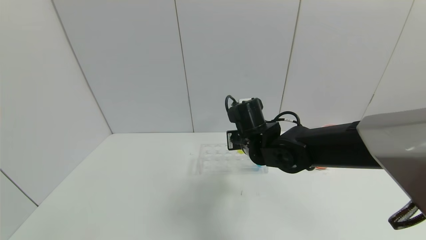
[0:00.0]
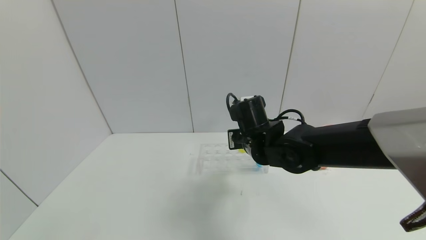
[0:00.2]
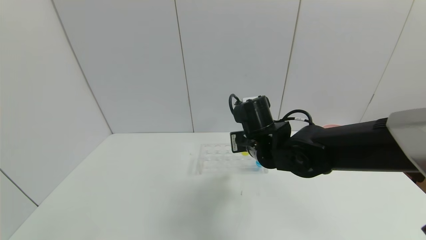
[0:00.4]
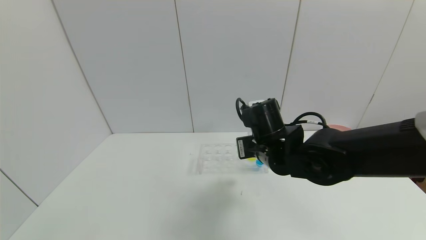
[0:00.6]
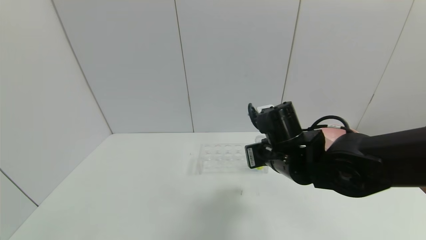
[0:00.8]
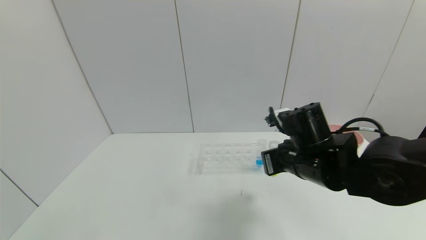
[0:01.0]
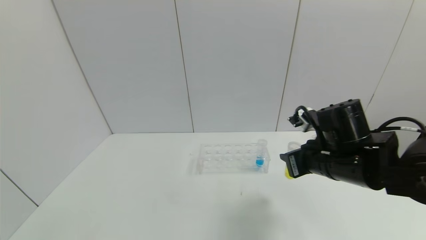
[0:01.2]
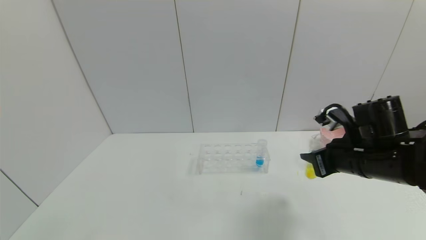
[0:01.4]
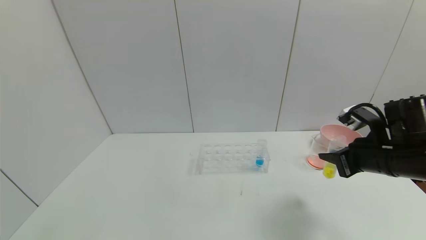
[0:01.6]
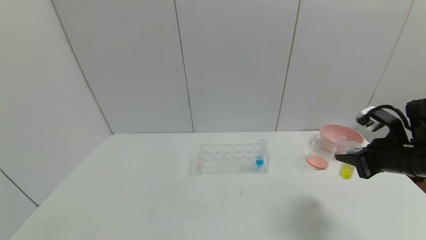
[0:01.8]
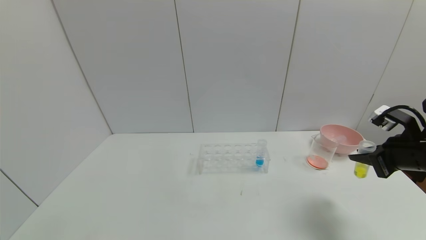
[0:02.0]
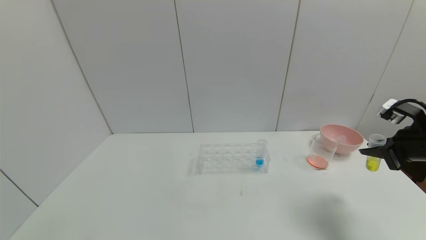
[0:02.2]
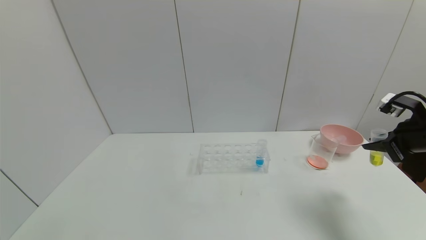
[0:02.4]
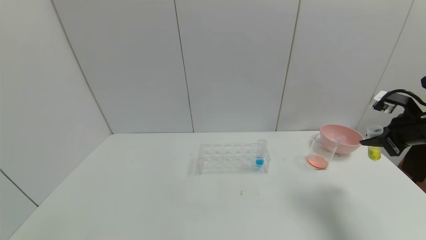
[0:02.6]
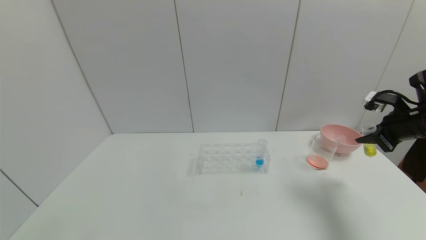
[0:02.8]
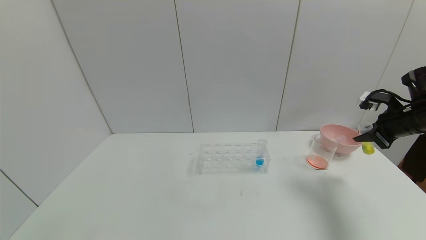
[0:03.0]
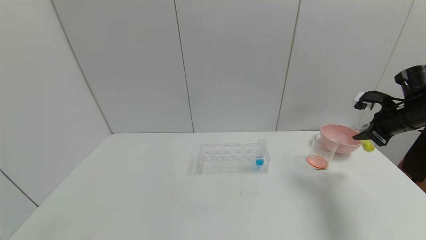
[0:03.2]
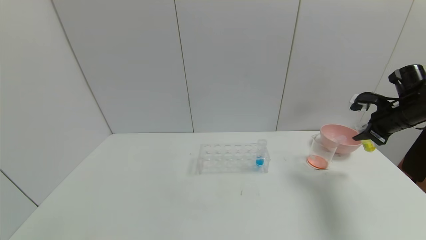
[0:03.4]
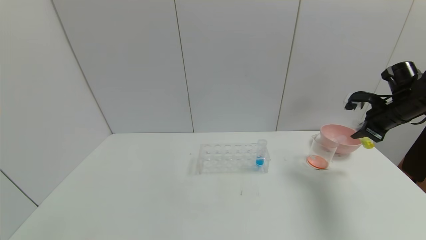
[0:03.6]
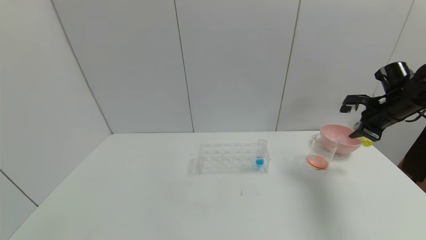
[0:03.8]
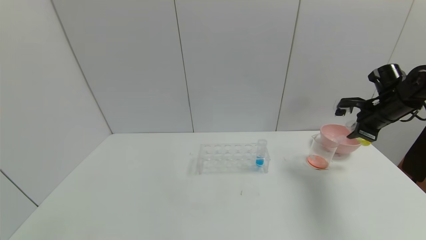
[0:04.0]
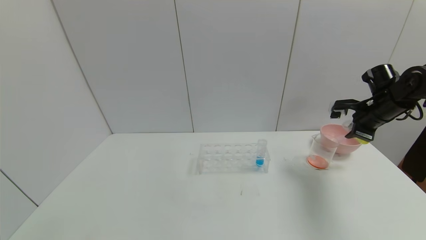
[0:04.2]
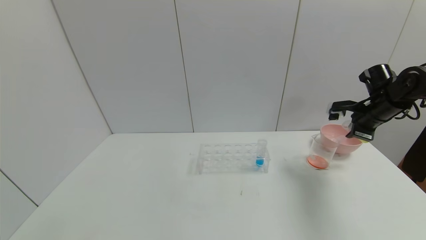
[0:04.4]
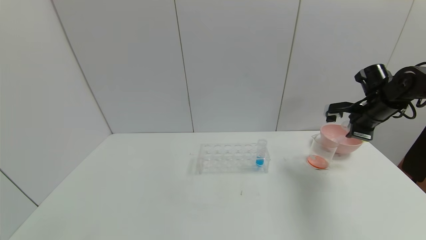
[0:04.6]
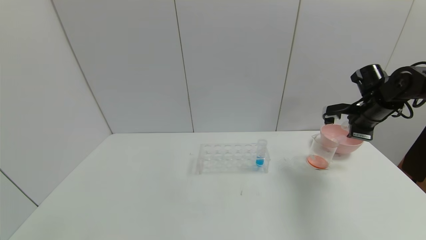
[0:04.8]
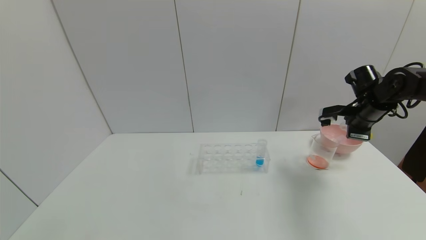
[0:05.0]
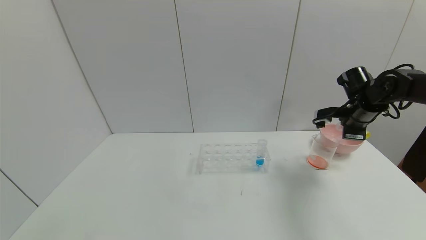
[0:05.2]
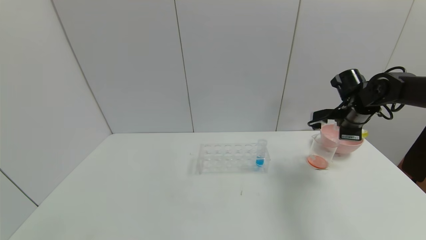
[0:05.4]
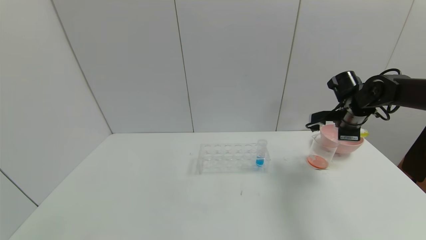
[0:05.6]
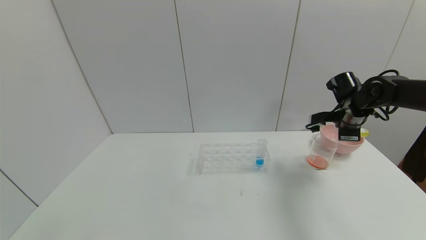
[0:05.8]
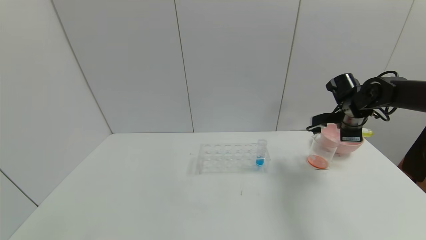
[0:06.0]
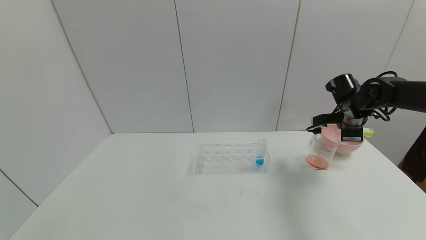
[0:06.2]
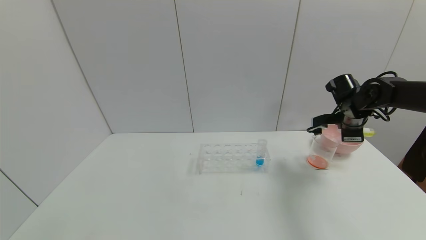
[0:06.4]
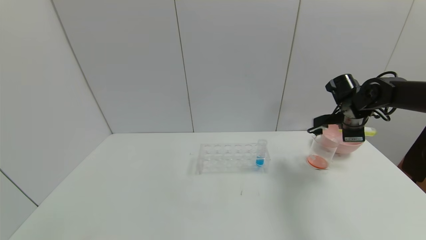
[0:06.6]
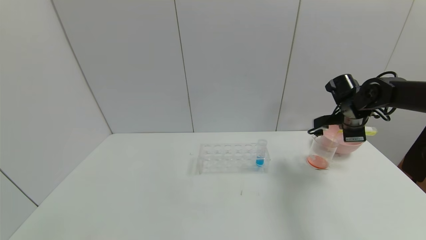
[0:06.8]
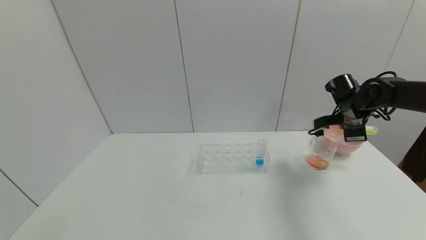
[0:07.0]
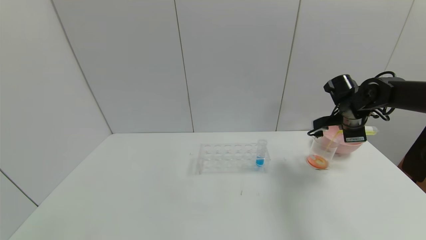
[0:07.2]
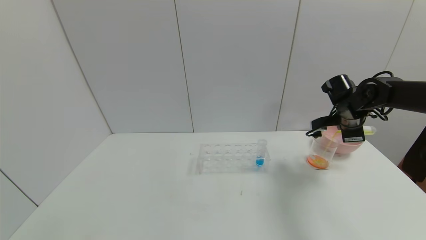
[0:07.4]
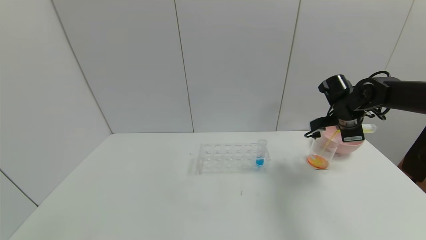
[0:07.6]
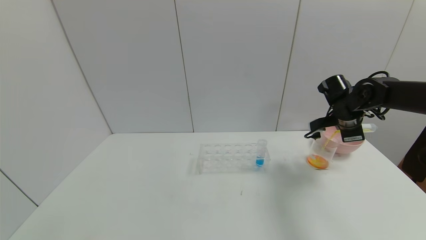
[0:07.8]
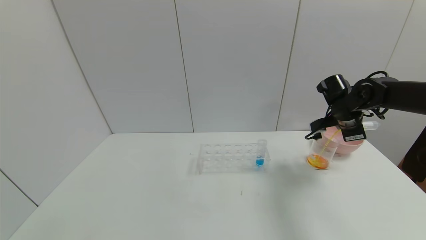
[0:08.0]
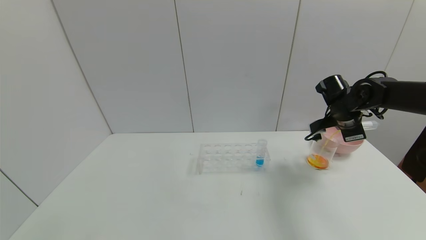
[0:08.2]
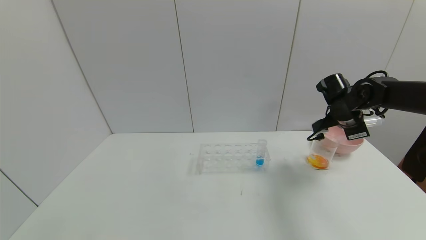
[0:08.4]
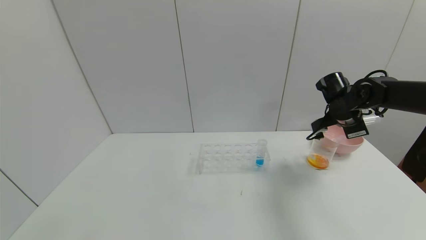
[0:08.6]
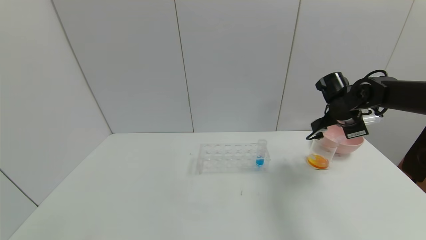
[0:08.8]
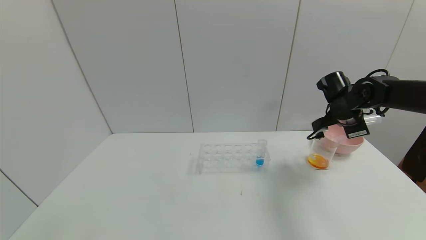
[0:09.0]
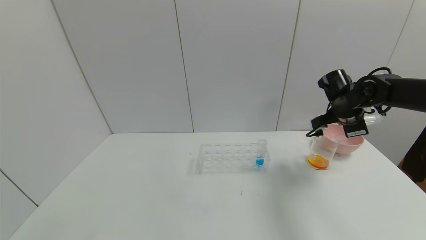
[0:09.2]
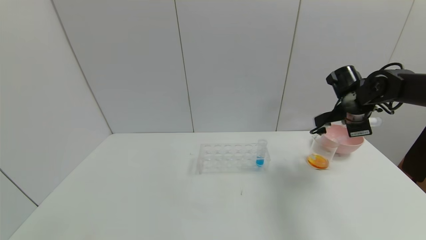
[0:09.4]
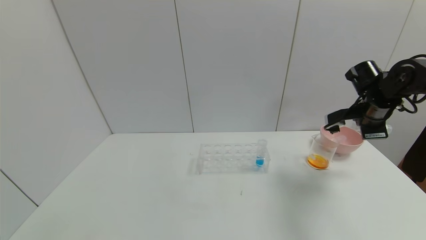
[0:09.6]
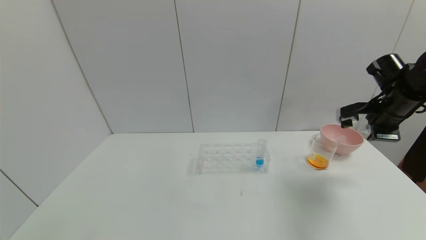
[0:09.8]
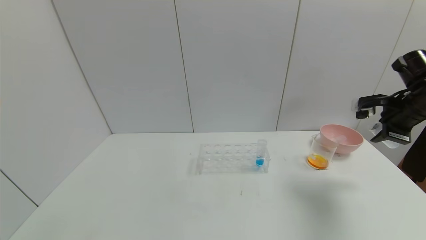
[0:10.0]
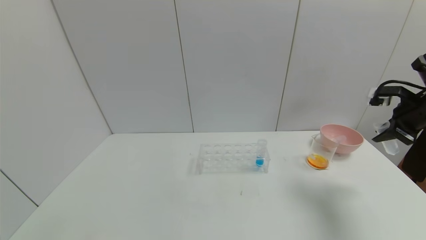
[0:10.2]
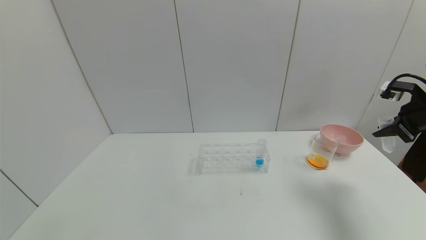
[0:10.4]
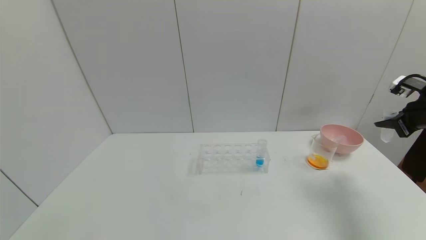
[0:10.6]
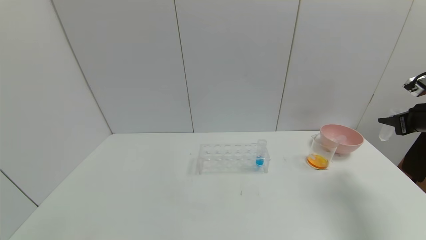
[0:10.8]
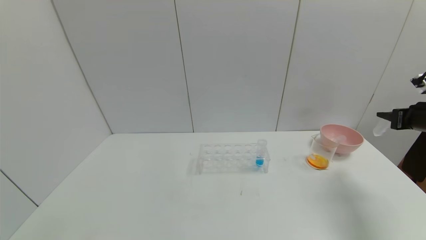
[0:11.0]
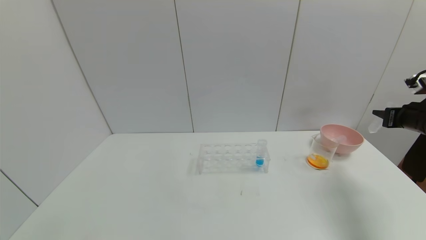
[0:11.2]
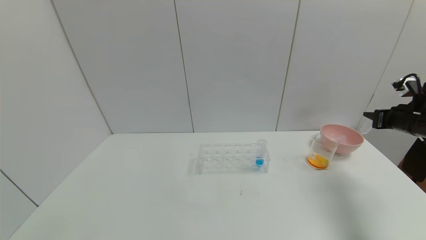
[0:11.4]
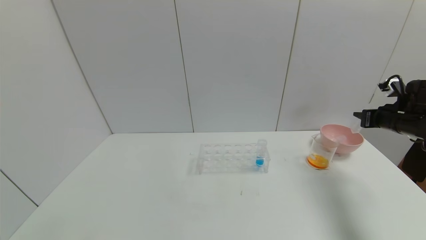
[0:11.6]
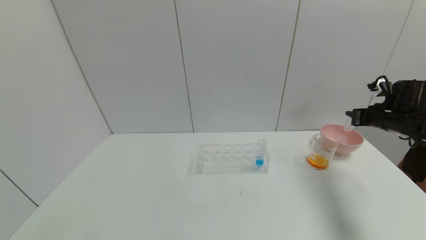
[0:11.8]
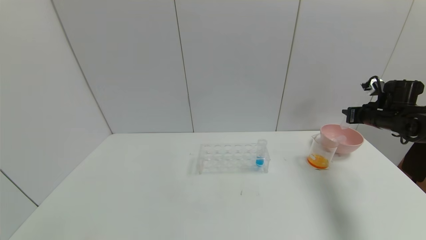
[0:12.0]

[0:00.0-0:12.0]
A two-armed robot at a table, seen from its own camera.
Task of the whole recording: pick up the test tube with yellow pigment and the test tube with red pigment by grippers and pour them into the beaker.
Step, 0:01.2 to 0:10.6: Pour the yellow reagent into the graduated cylinder with right gripper.
0:00.0 to 0:01.6: The right gripper shifts some 25 cm to the right.
0:01.6 to 0:03.0: The right gripper is displaced to the right and forward by some 15 cm.
0:03.0 to 0:04.4: The right gripper travels forward by some 5 cm.
0:04.4 to 0:06.0: The right gripper goes about 5 cm to the left.
0:06.0 to 0:07.6: The grippers move only a little.
0:07.6 to 0:09.0: The grippers stay close to where they were, moving slightly.
0:09.0 to 0:10.4: The right gripper heads to the right, backward and upward, covering roughly 15 cm.
0:10.4 to 0:12.0: The right gripper goes roughly 15 cm forward and downward.

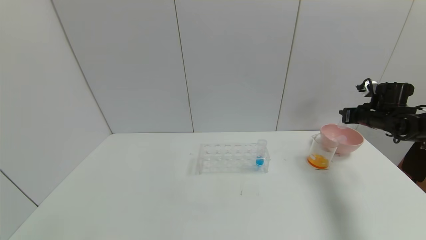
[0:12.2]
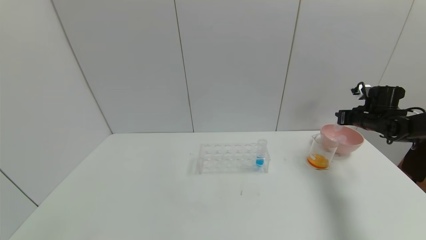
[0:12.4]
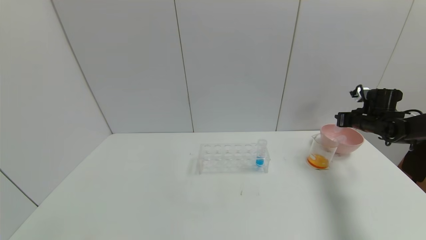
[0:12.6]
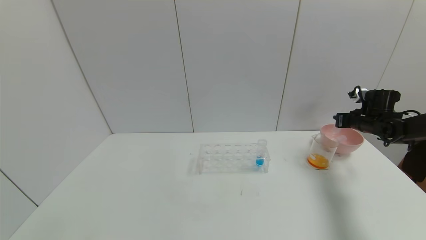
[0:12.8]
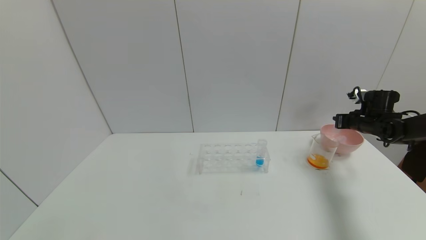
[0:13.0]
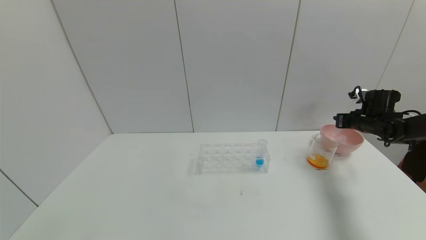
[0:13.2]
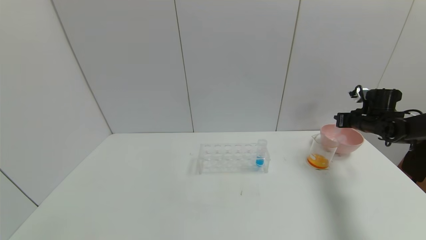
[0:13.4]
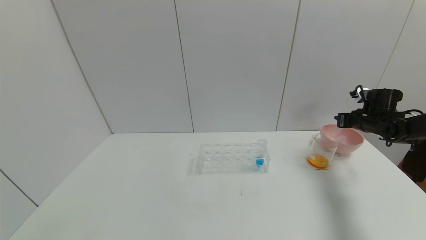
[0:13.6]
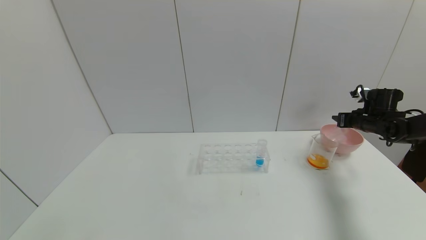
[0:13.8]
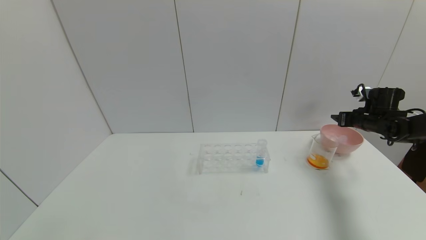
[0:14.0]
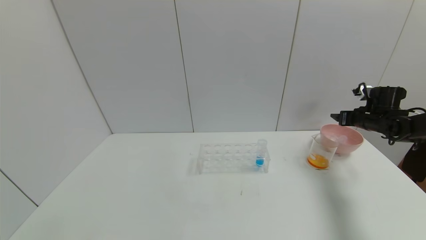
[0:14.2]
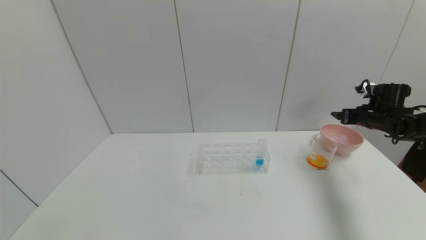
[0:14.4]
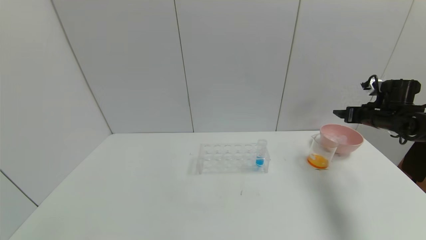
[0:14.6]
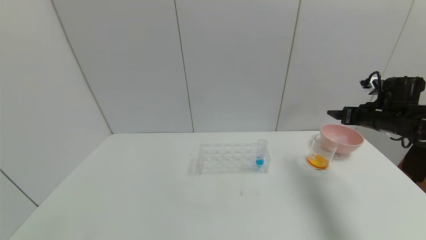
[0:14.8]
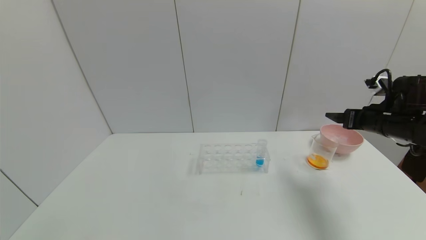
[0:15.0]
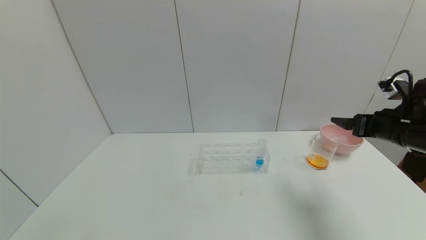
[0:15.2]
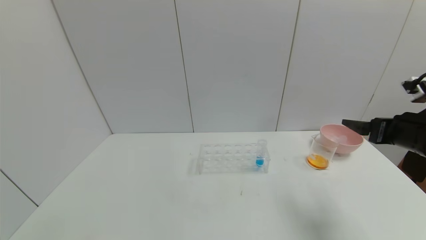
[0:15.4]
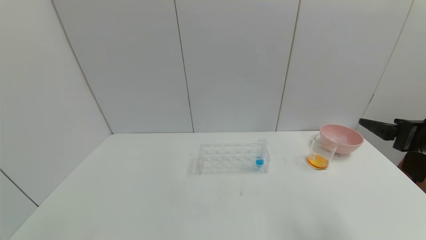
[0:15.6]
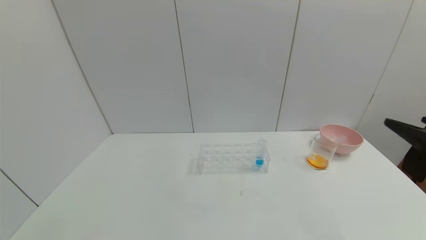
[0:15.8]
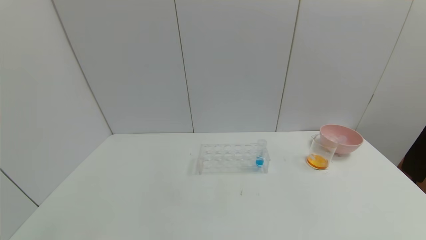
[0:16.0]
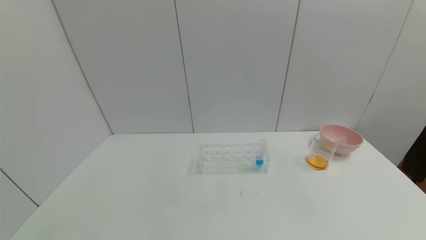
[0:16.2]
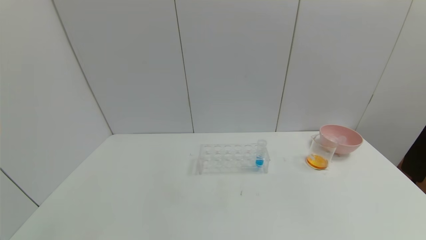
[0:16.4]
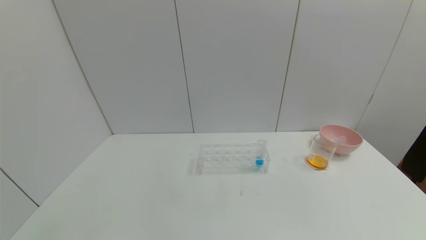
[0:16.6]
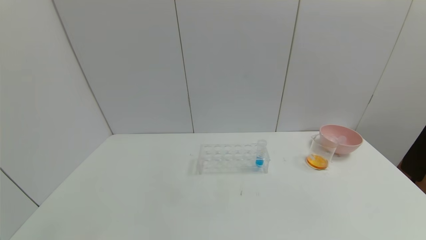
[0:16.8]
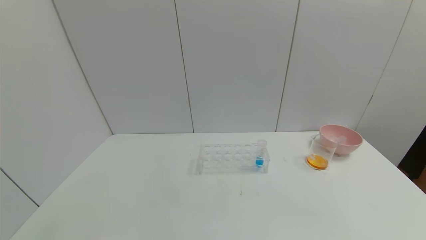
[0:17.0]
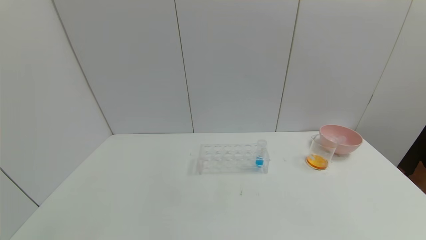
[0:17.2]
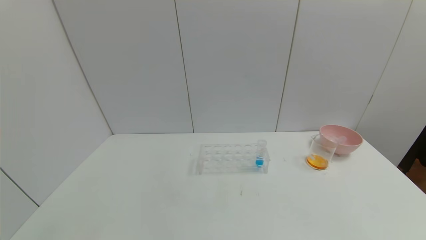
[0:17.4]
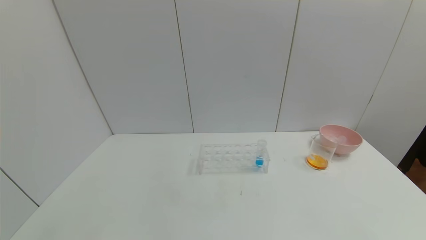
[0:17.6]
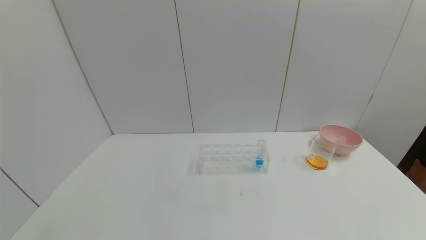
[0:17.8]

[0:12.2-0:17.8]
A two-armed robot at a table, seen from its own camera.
Task of the whole recording: pick up the test tube with yellow pigment and the test tube with red pigment by grippers and pour them into the beaker.
Step, 0:12.2 to 0:15.0: Place the test tube into the bowl with right gripper.
0:12.2 to 0:13.6: The grippers move only a little.
0:13.6 to 0:15.0: The right gripper heads backward, to the left and upward, covering approximately 15 cm, and opens.
0:15.0 to 0:16.4: The right gripper shifts approximately 35 cm backward.
